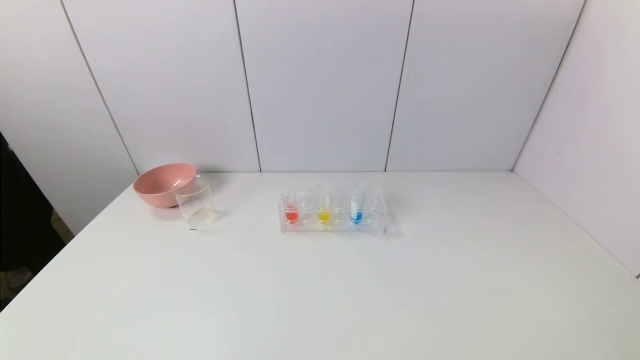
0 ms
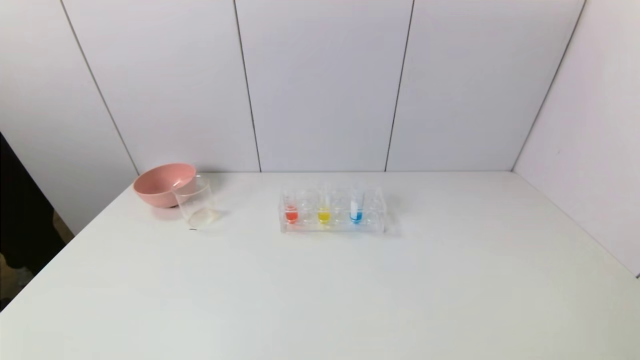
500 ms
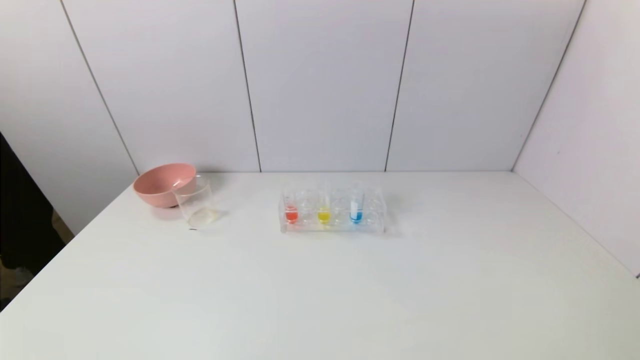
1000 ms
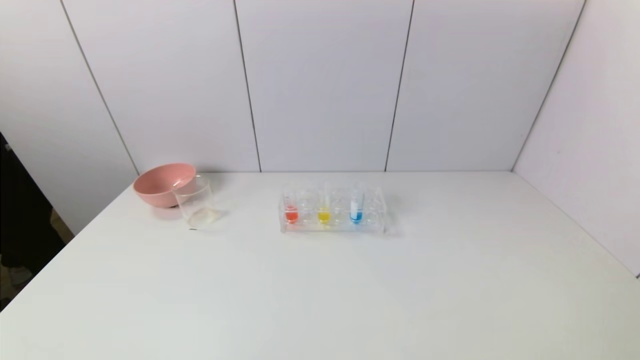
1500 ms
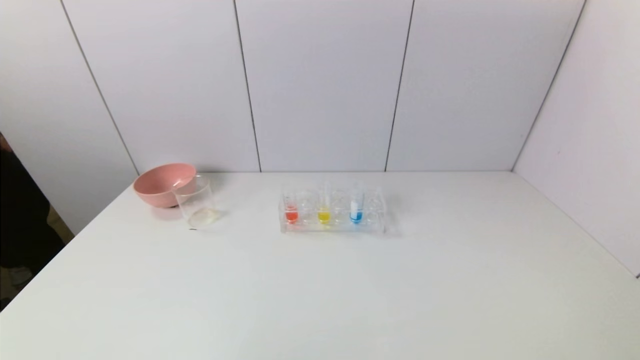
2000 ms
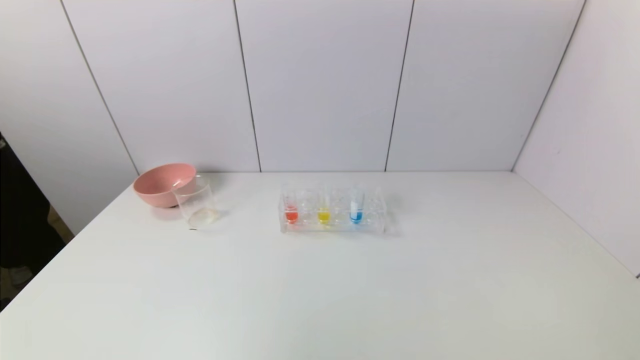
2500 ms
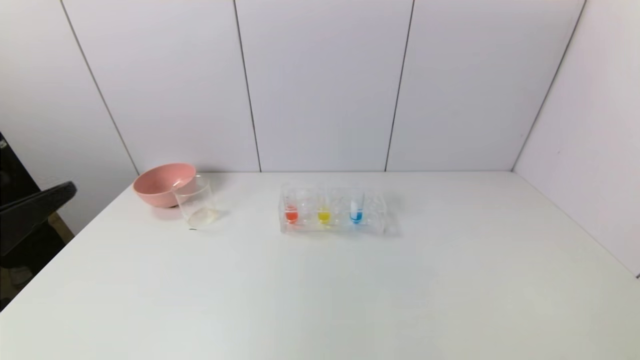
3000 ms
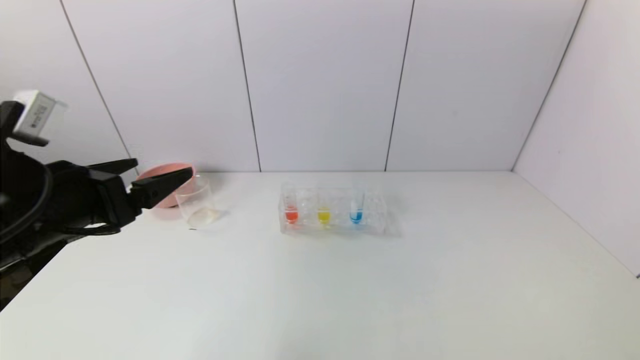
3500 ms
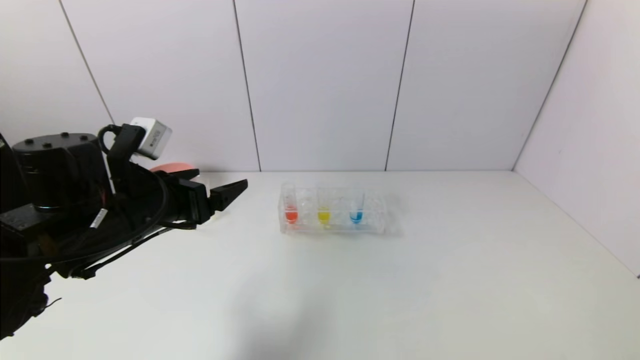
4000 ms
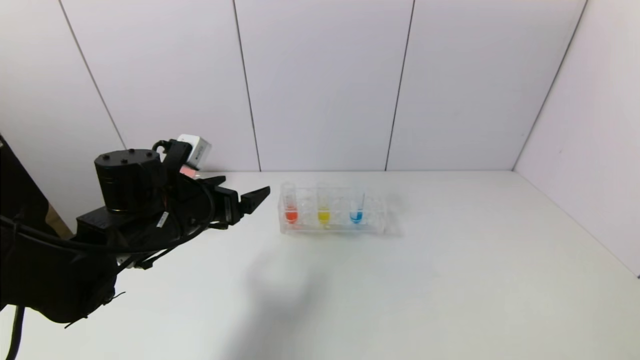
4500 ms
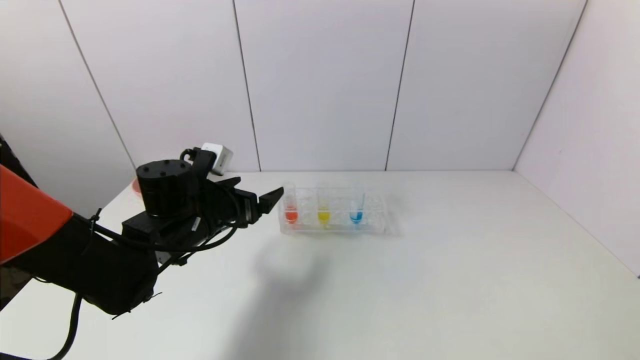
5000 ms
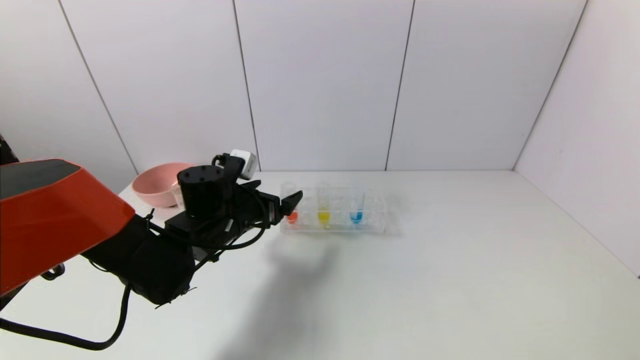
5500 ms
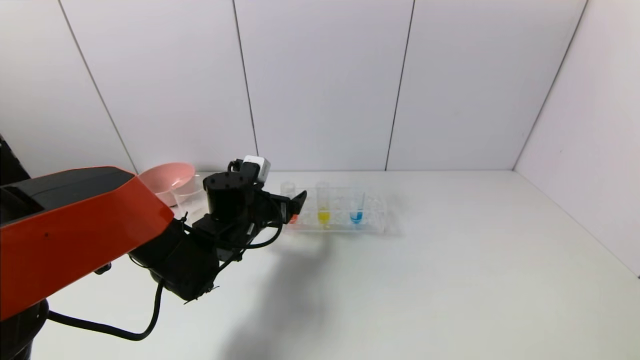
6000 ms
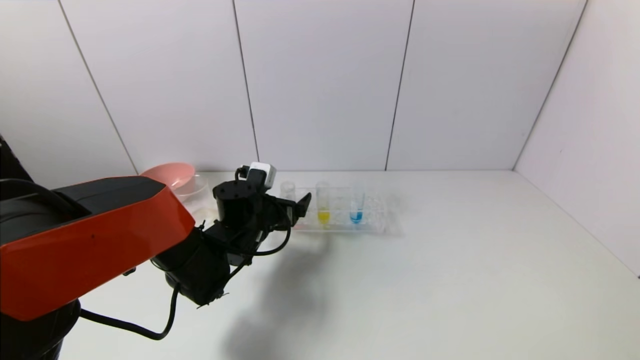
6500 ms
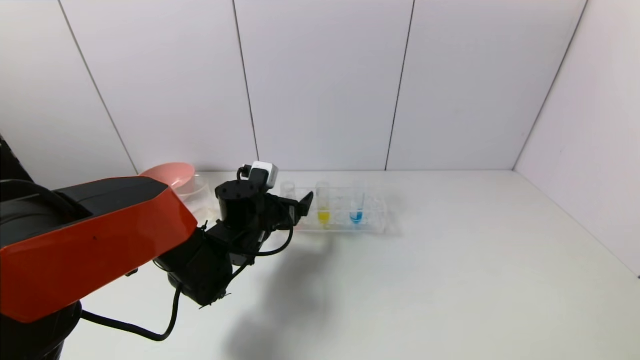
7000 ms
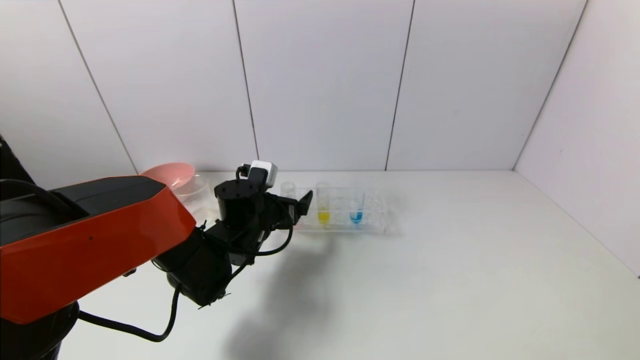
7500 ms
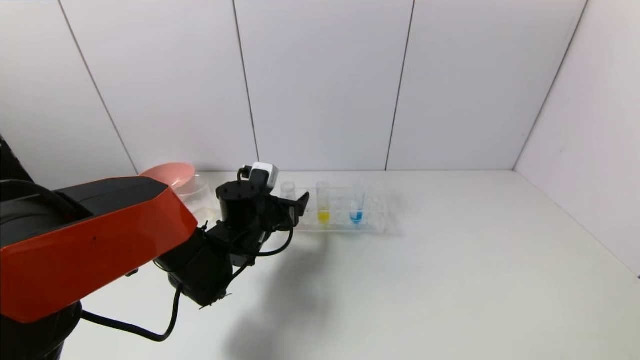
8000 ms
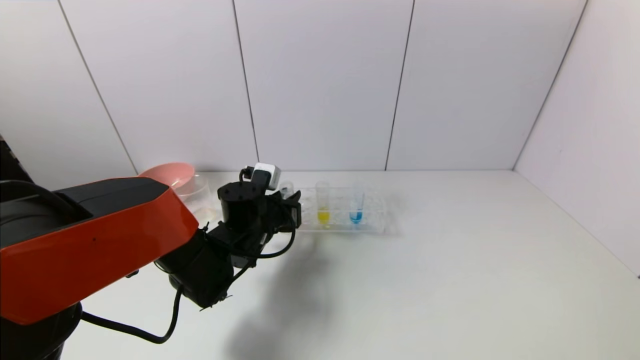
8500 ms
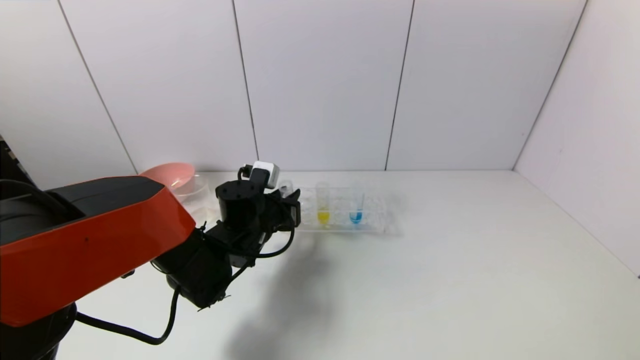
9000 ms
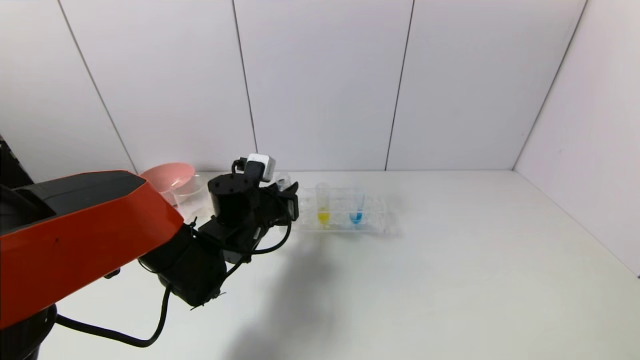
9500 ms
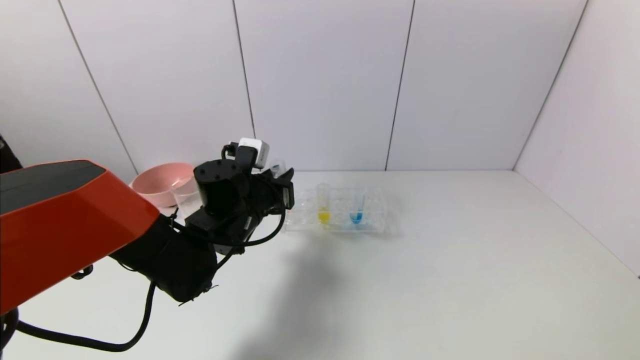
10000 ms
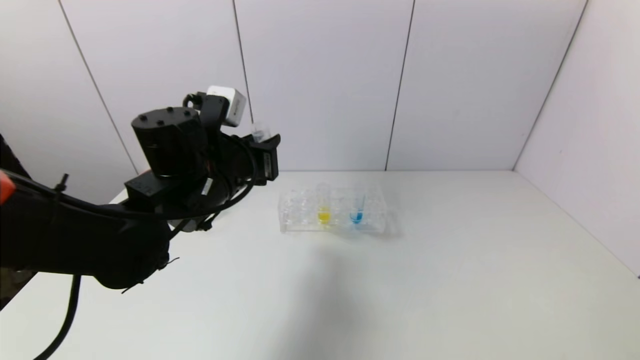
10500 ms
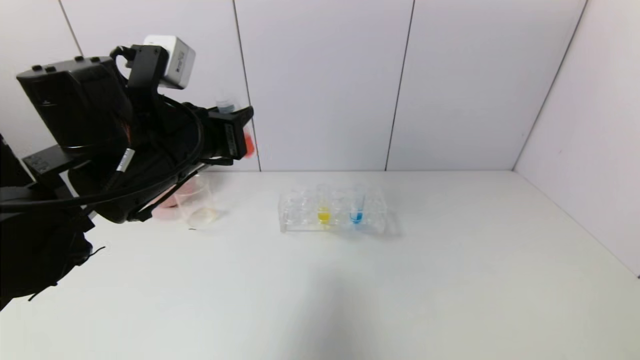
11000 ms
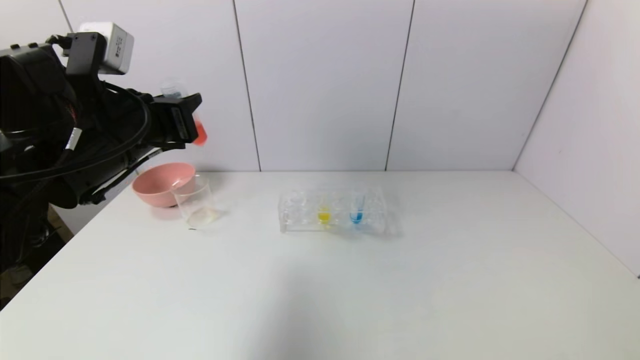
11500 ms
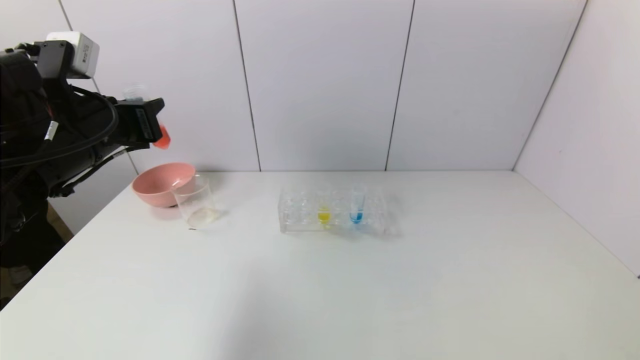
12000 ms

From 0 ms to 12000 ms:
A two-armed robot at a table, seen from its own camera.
Task of the whole recording: pick up the test tube with yellow pigment and the test tube with red pigment by grippers and pour them into the beaker.
Step, from 0 ms to 8500 ms: Grasp the red reagent with the left gripper.
From 2000 ms to 4000 ms: The left gripper is displaced forward by about 30 cm.
From 4000 ms to 6000 ms: The left gripper goes about 15 cm forward, downward and to the right.
From 6000 ms to 8000 ms: The grippers make only small movements.
From 8000 ms to 10000 ms: The left gripper moves upward, about 5 cm, and closes its fingers.
From 10000 ms to 12000 ms: The left gripper moves to the left and upward, roughly 20 cm.

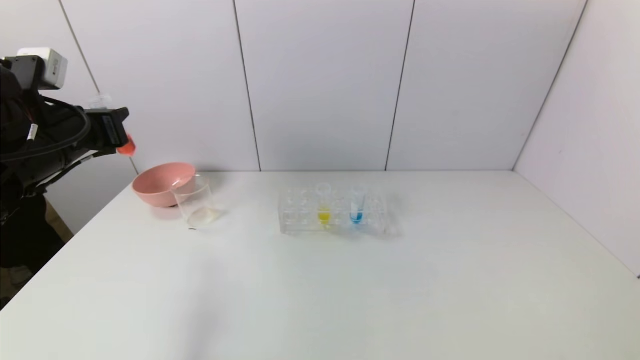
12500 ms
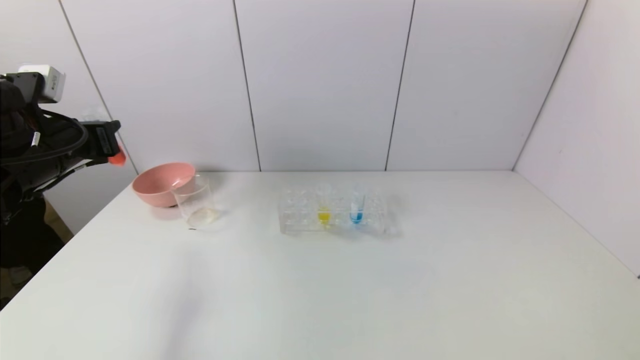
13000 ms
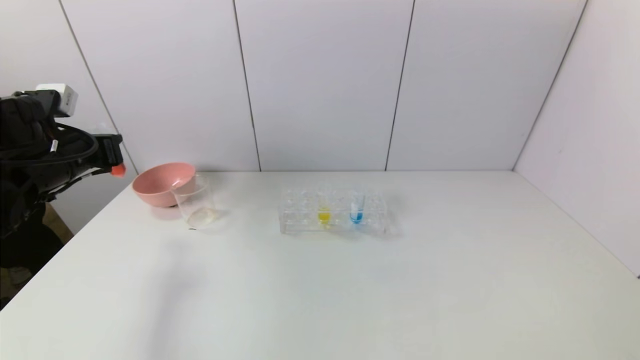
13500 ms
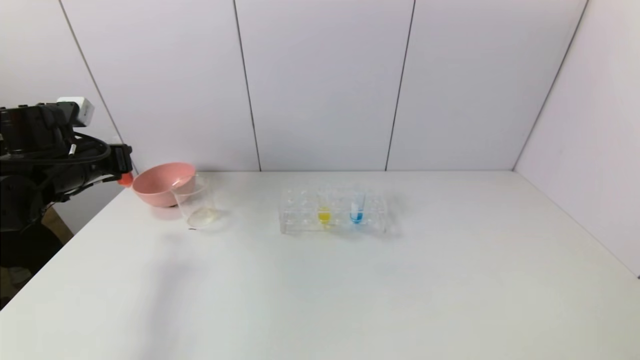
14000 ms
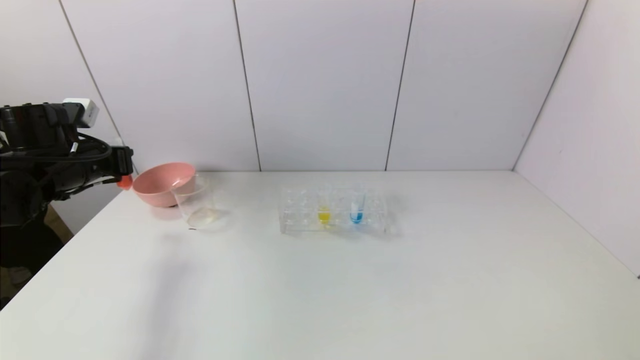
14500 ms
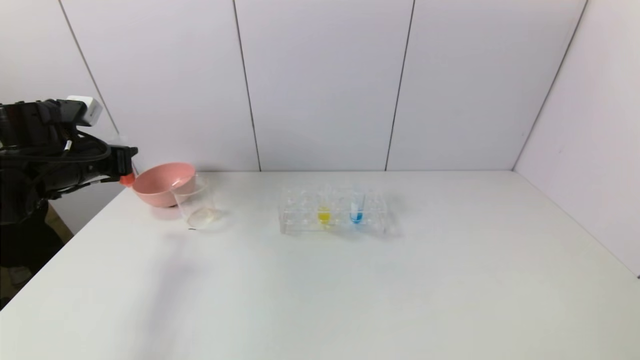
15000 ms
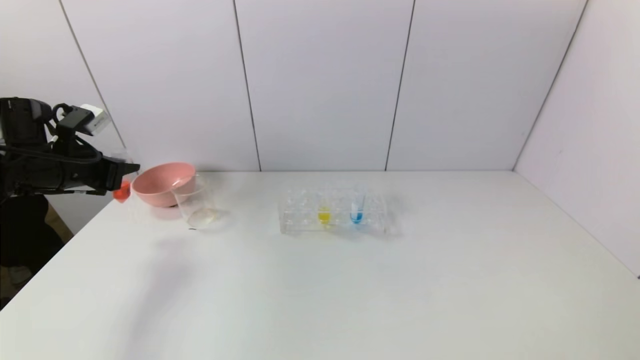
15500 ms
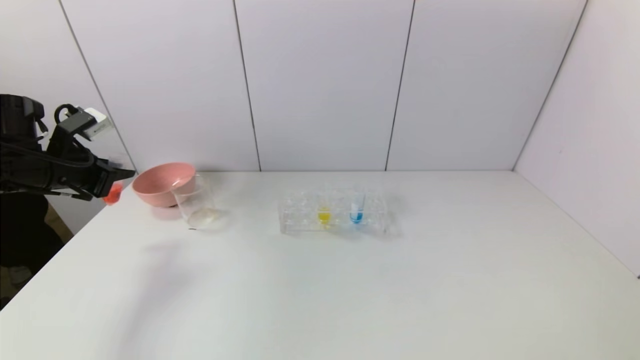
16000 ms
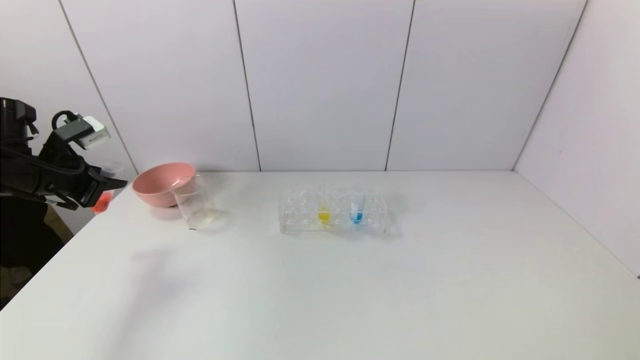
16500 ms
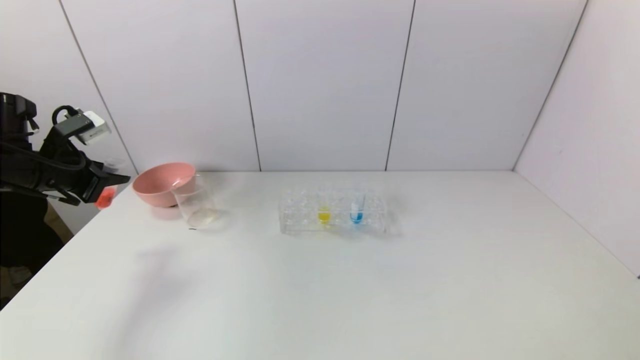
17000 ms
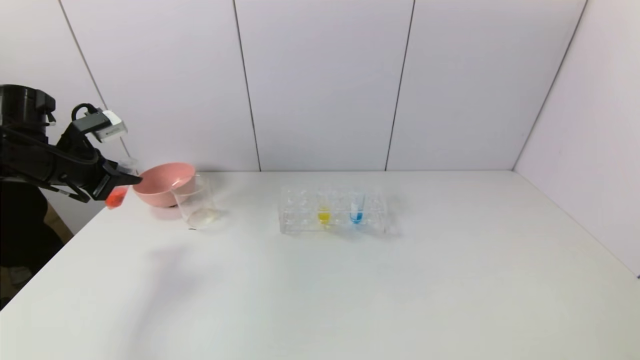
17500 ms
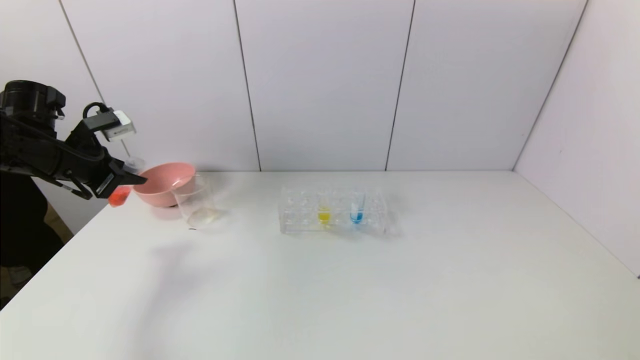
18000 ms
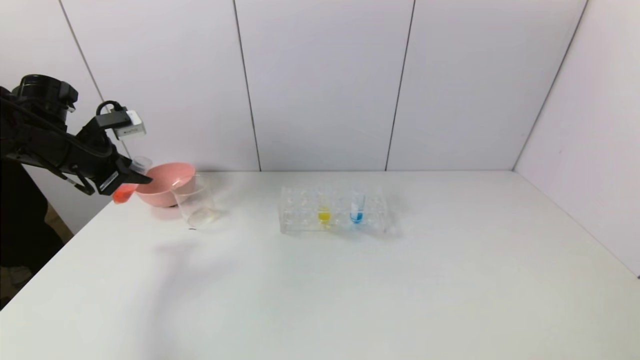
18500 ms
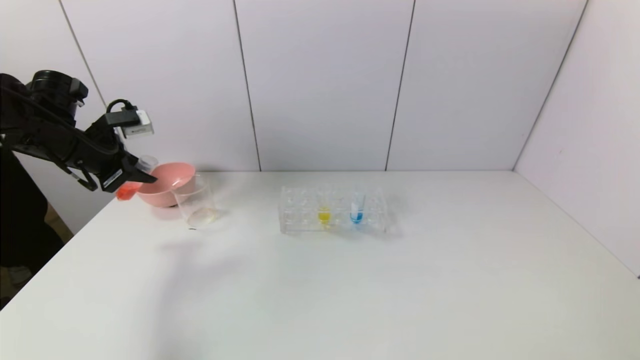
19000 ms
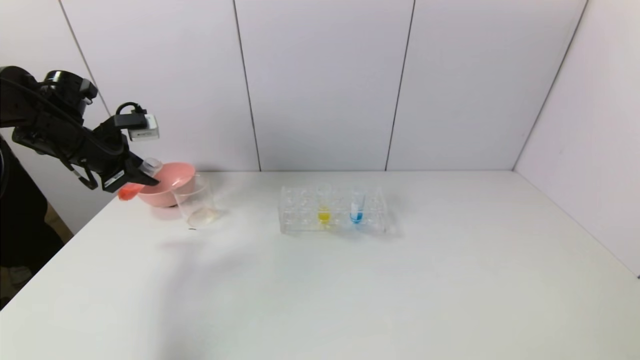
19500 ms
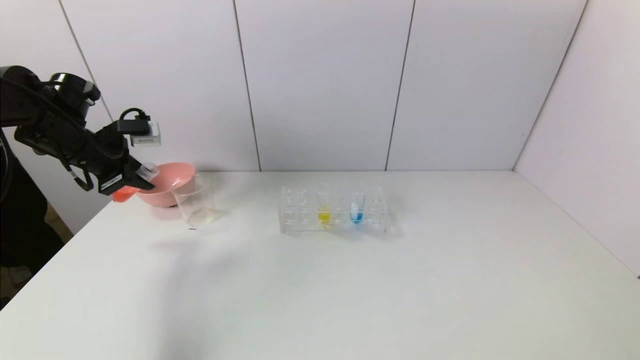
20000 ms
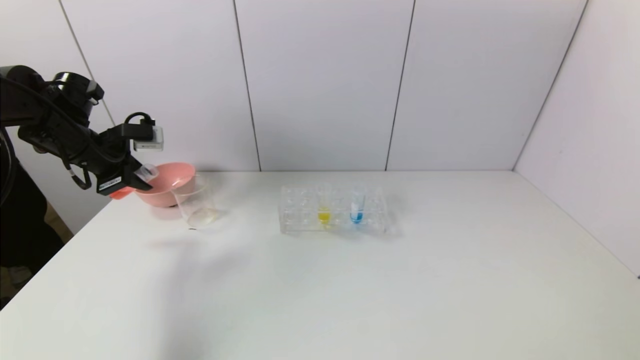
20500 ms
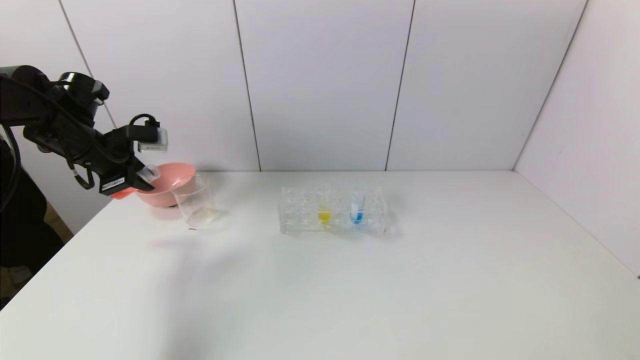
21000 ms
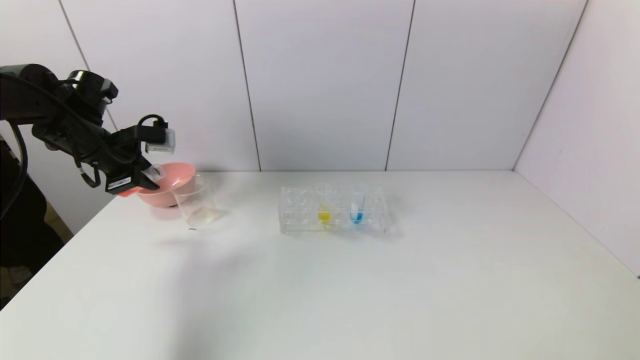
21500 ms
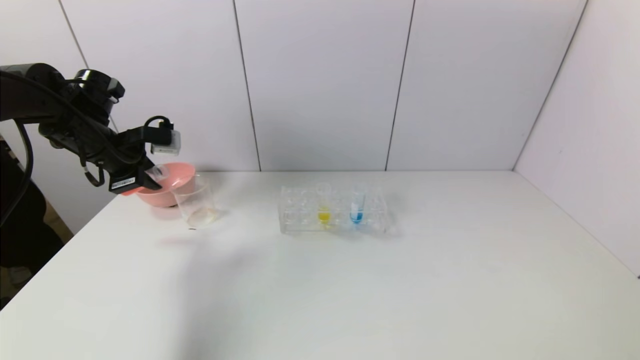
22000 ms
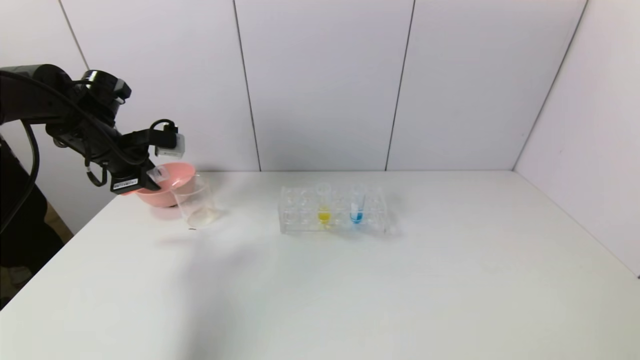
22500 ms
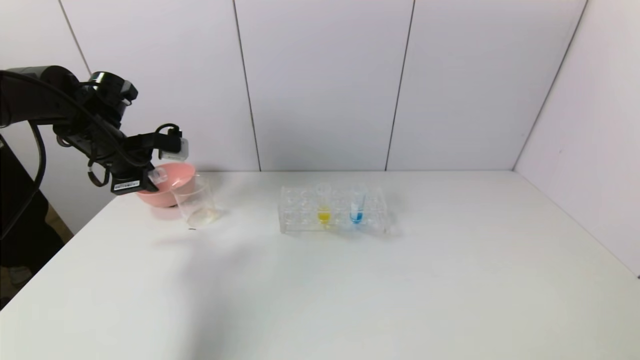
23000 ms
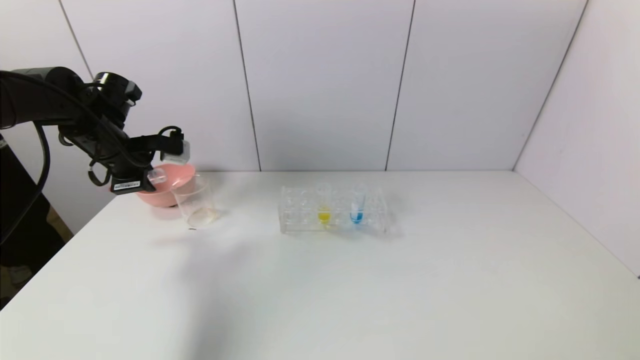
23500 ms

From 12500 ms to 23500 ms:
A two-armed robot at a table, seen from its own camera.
Task of the whole recording: pick up the test tube with yellow pigment and the test tube with red pigment by grippers and pour them into the beaker.
From 12500 ms to 14500 ms: The left gripper is displaced forward and downward by about 10 cm.
From 16000 ms to 18000 ms: The grippers stay close to where they were, moving slightly.
From 20000 ms to 21500 ms: The grippers make only small movements.
From 21500 ms to 23500 ms: The grippers make only small movements.
